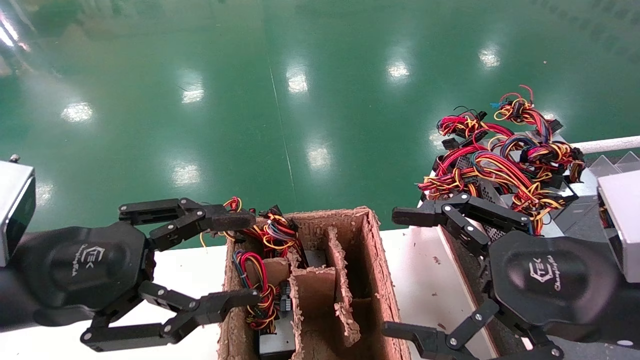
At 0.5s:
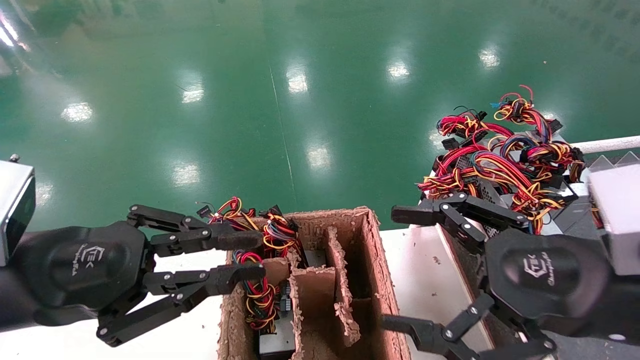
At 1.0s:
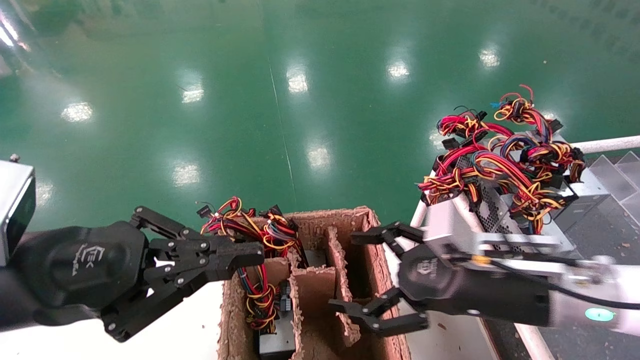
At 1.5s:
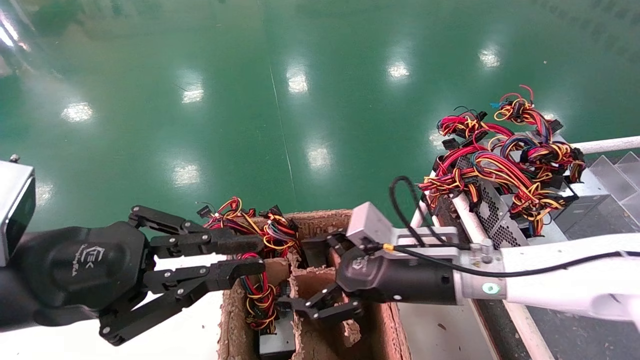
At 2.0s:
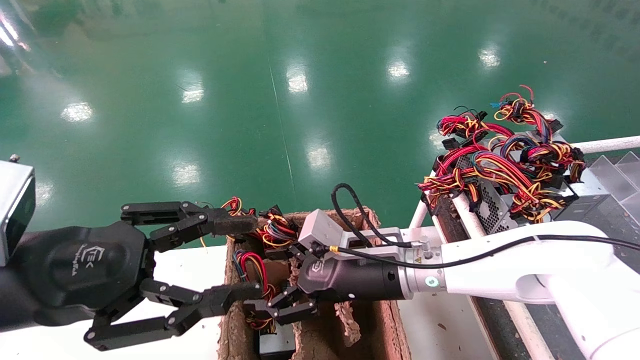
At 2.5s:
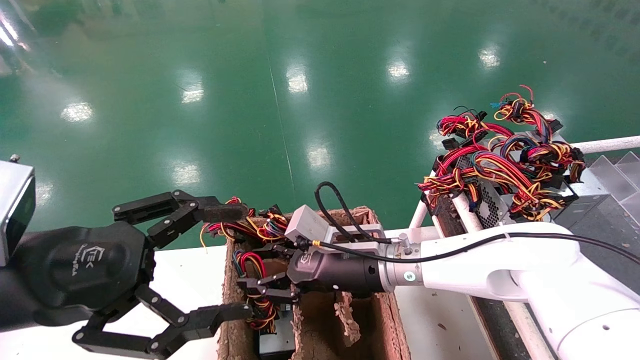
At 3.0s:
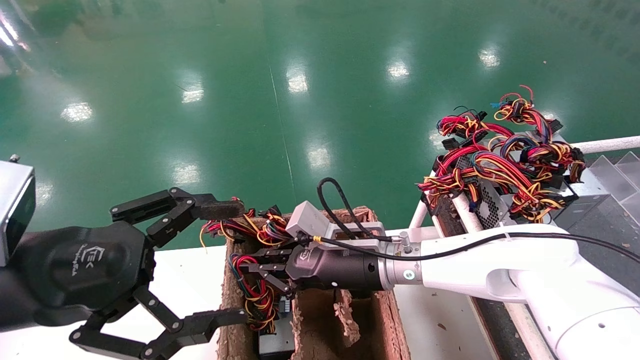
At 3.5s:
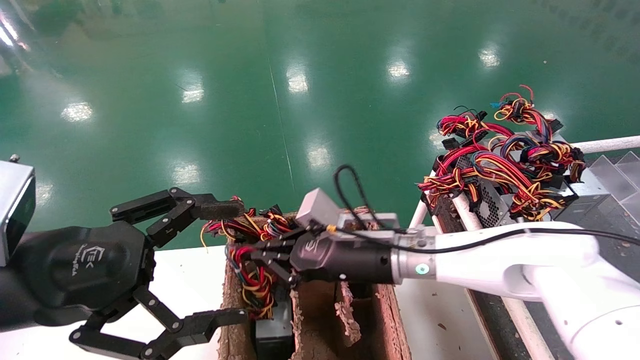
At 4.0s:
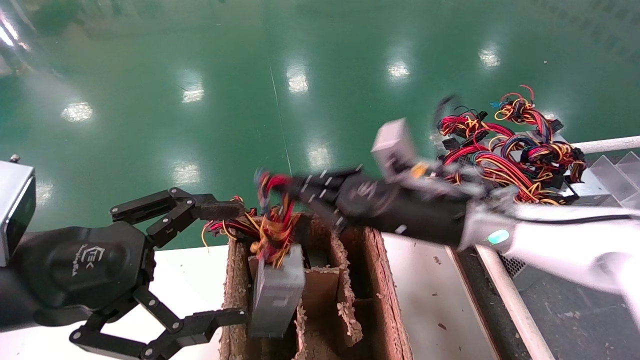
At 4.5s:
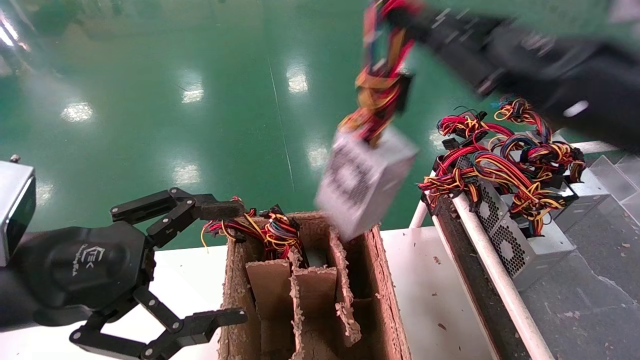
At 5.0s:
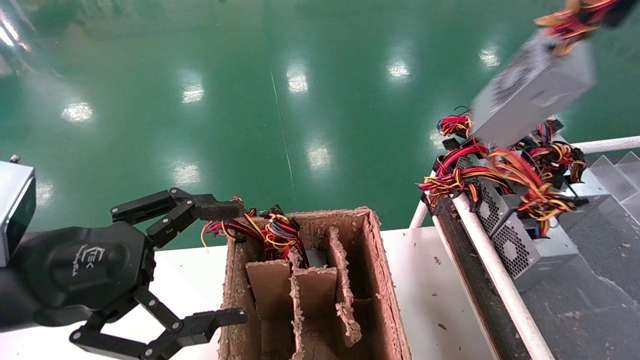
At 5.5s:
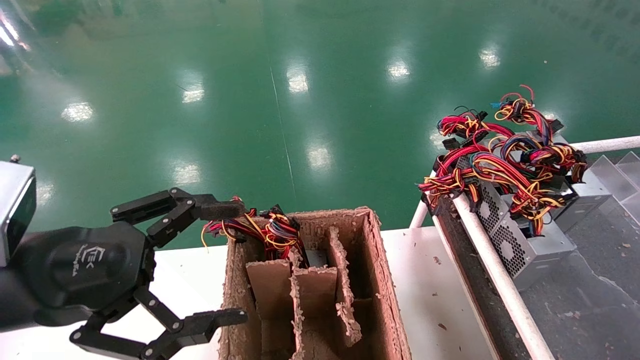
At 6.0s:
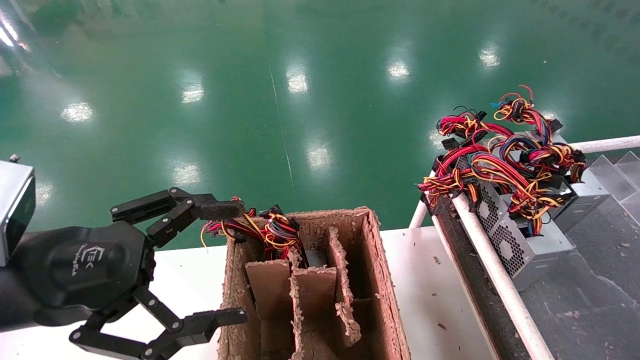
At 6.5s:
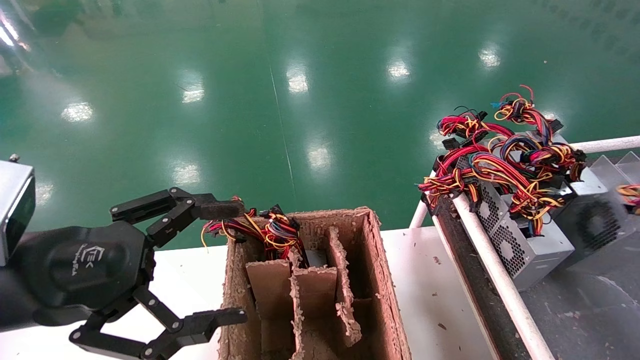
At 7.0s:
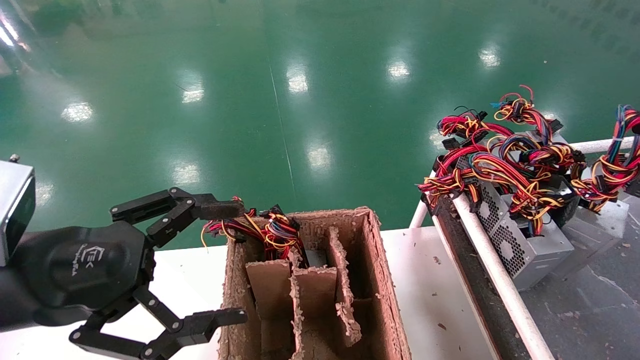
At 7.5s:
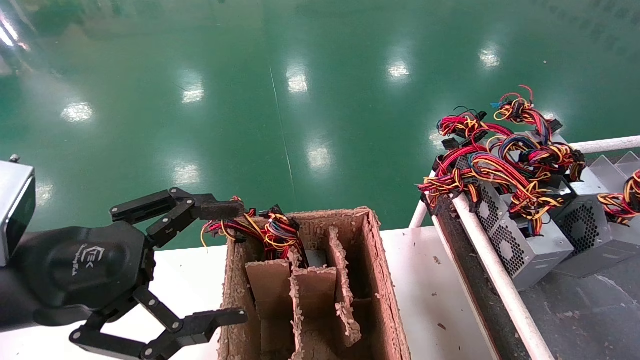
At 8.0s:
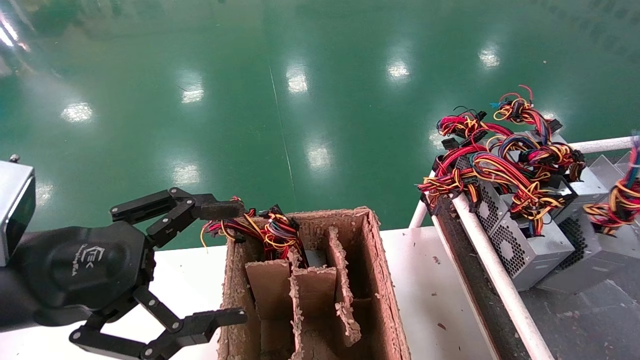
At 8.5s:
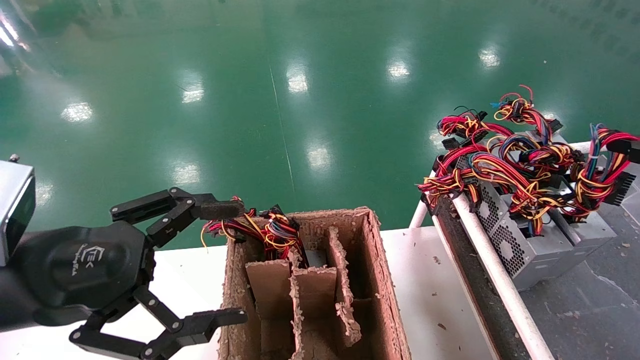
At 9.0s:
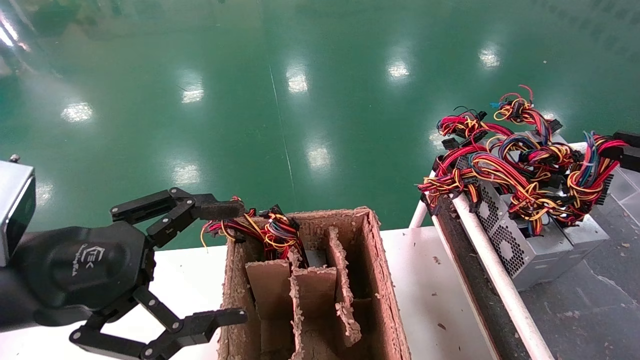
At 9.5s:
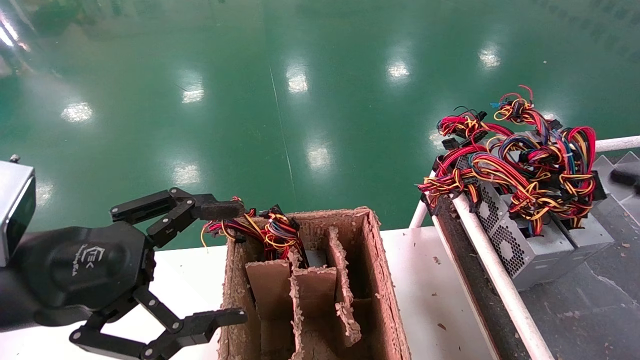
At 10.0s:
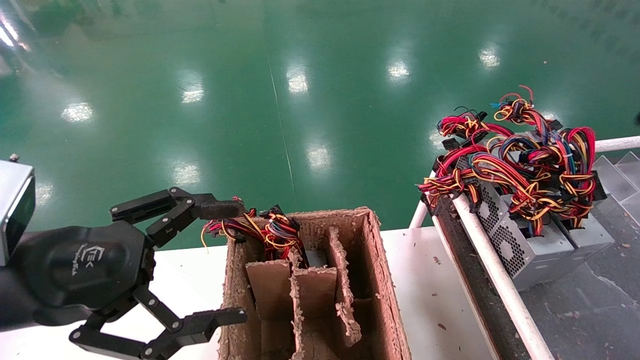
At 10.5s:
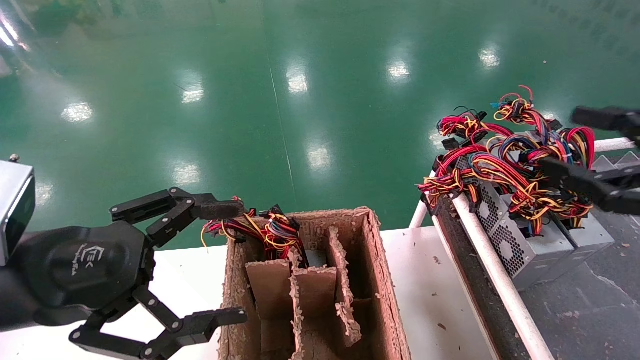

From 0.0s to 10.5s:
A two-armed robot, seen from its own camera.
Step, from 1.5s to 4.0s: Grab and lift the power supply from the large box.
Step, from 4.5s to 8.0s: Place the power supply on the operating table.
From 0.0s to 2.0s: The left gripper closes, then opens again. The right gripper goes about 25 cm forward, to the left and downward.
From 2.0s to 4.0s: The left gripper opens its fingers. Meanwhile the right gripper heads upward and to the right, covering some 10 cm, and closes its fingers.
From 4.0s to 6.5s: The right gripper is displaced to the right by some 40 cm.
From 6.5s to 8.5s: The right gripper travels to the left by about 5 cm.
From 8.5s to 10.5s: The right gripper moves to the left, approximately 10 cm, and opens its fingers.

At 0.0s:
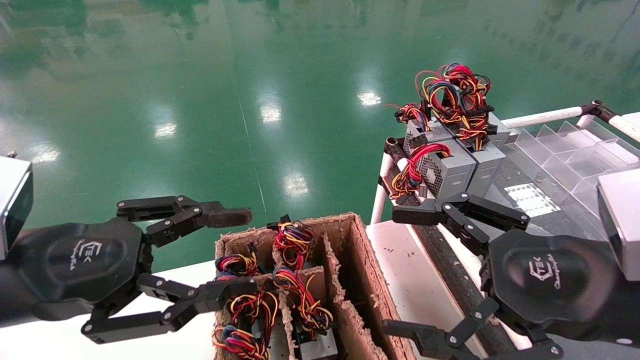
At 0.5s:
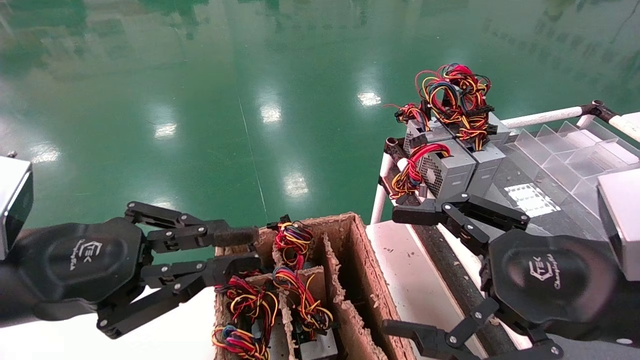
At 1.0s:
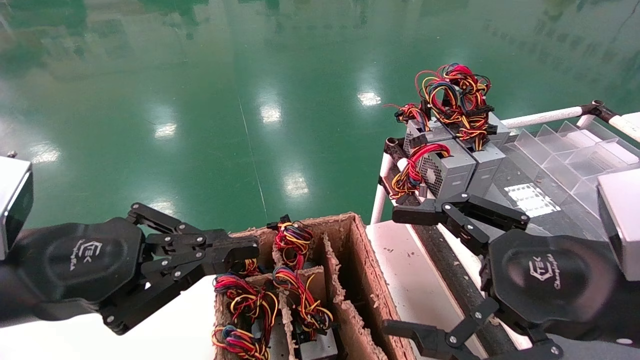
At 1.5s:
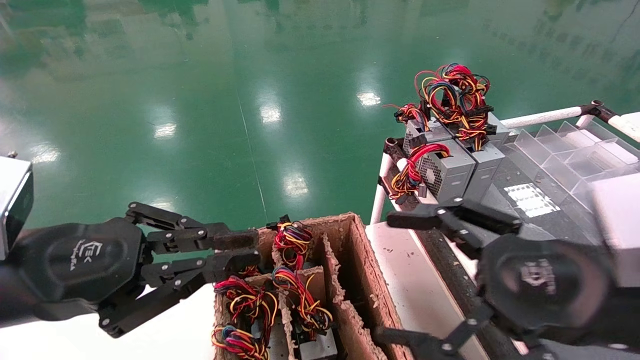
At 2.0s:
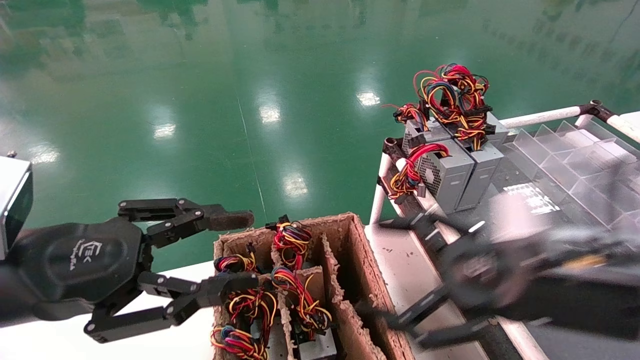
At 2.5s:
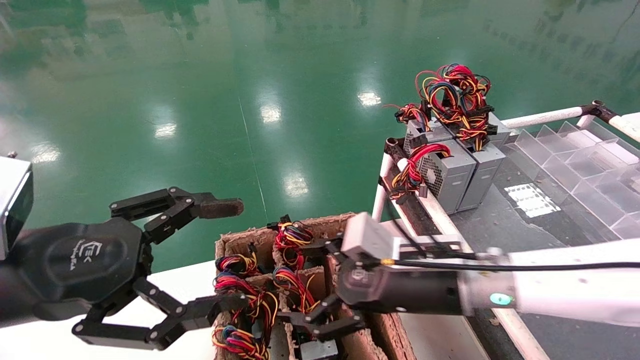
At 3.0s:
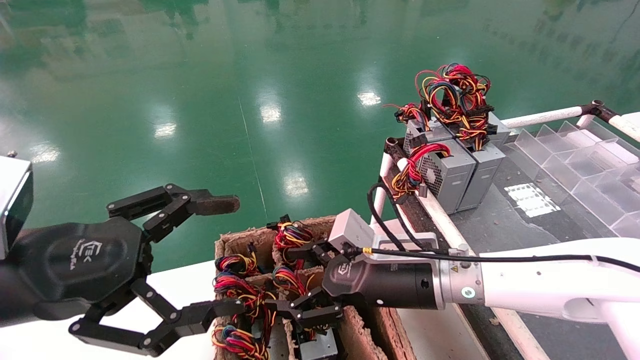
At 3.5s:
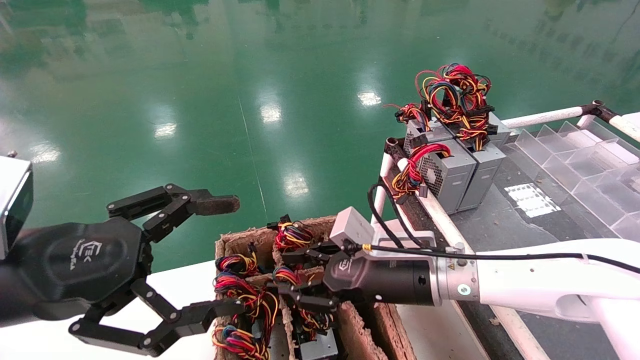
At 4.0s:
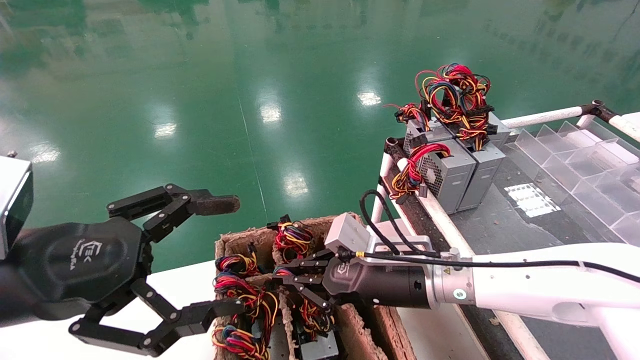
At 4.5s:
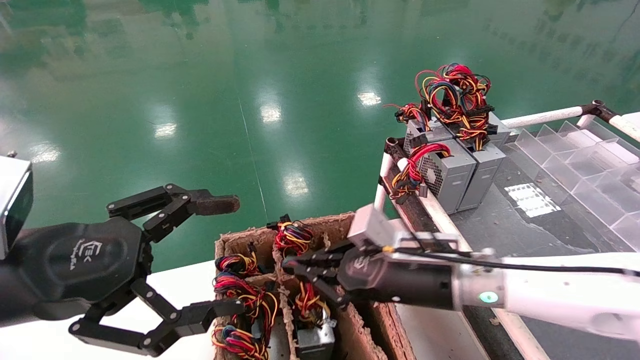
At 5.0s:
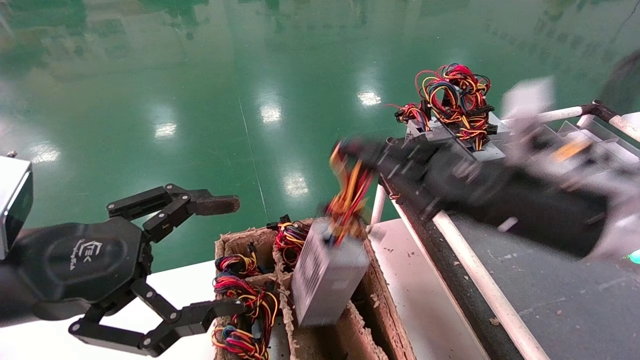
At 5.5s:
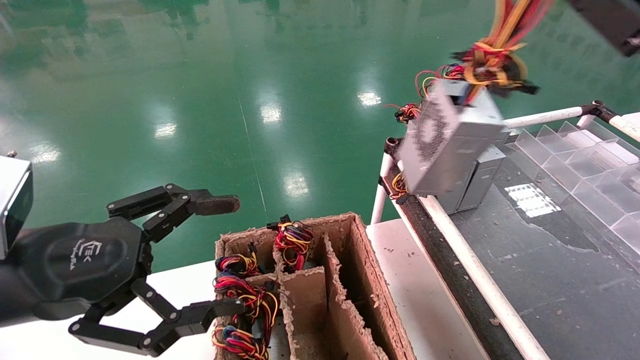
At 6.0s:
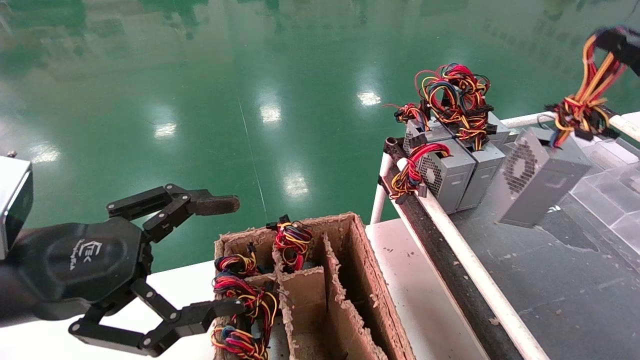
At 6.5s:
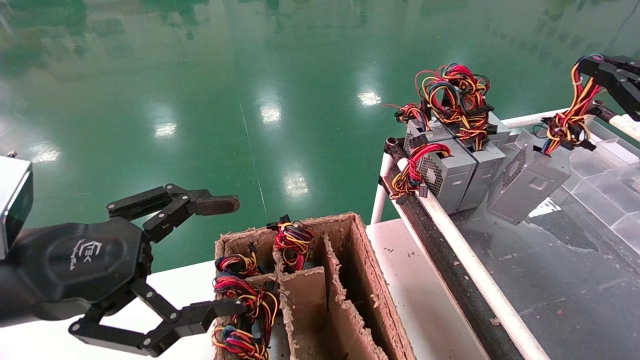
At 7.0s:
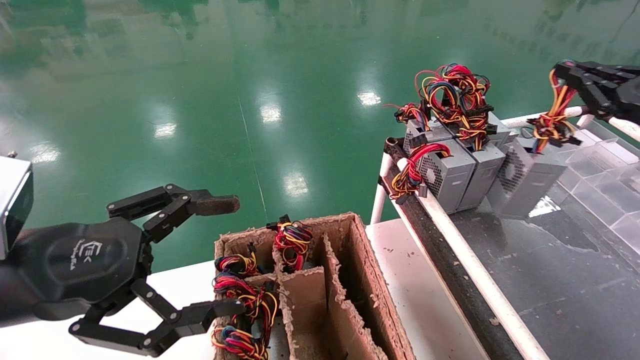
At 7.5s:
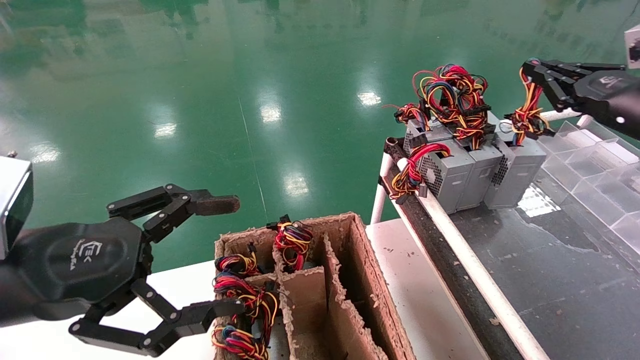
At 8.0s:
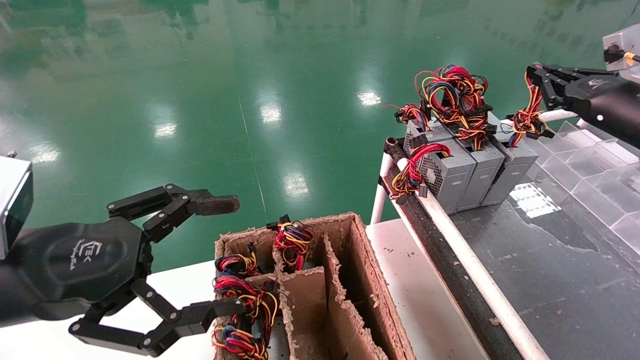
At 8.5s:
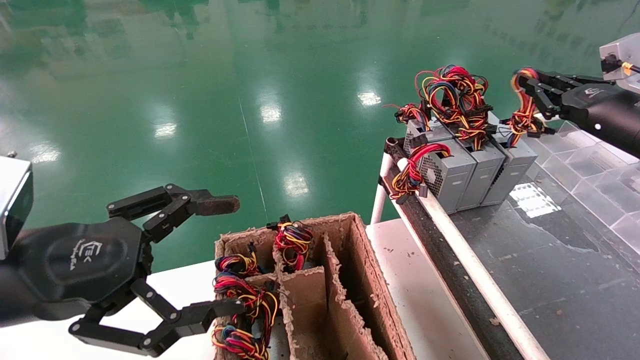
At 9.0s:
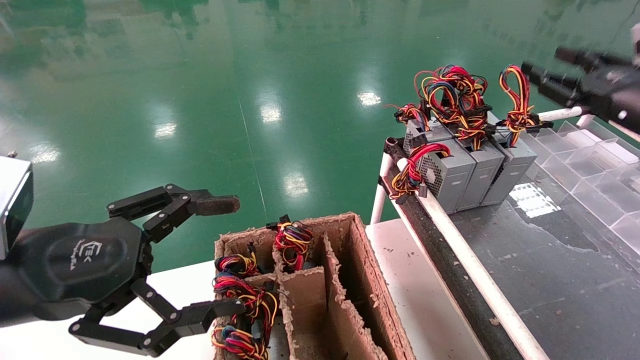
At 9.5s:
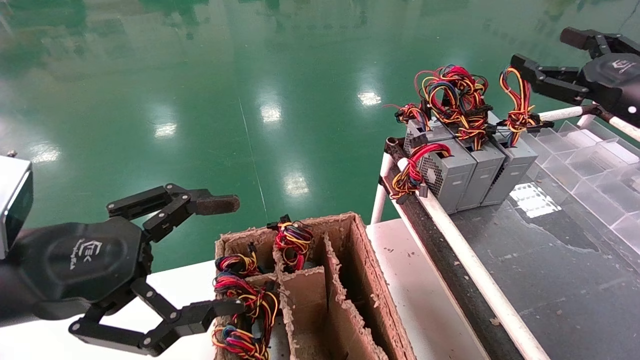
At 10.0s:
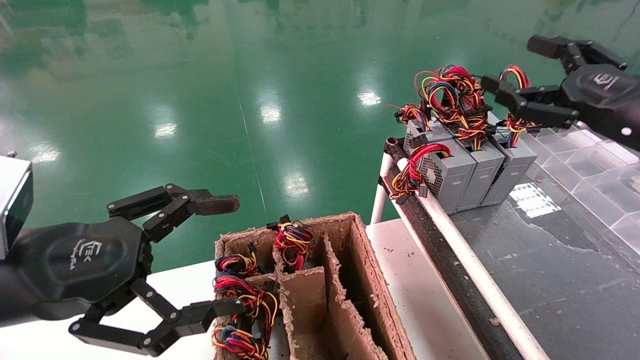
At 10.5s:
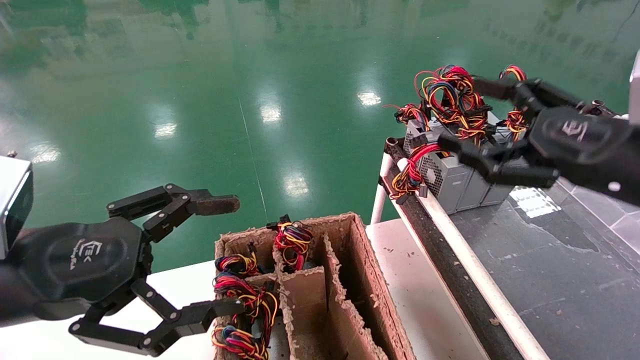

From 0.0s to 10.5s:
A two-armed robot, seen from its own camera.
Step, from 1.0s to 4.0s: Grab and lift the power supply from the large box.
Step, from 4.5s to 8.5s: Place the power supply on the operating table.
From 0.0s to 2.0s: The left gripper closes, then opens again; the right gripper heads forward, covering roughly 5 cm.
From 2.0s to 4.0s: The right gripper is displaced forward, to the left and downward by some 15 cm, and closes up; the left gripper opens its fingers.
From 4.0s to 6.5s: The right gripper is displaced to the right and upward by approximately 40 cm.
From 6.5s to 8.5s: The right gripper goes roughly 10 cm forward.
From 8.5s to 10.5s: The right gripper goes about 15 cm backward and to the left, and opens its fingers.
